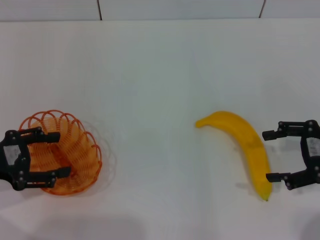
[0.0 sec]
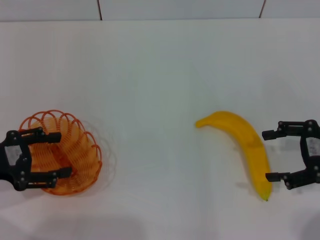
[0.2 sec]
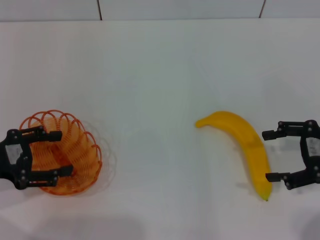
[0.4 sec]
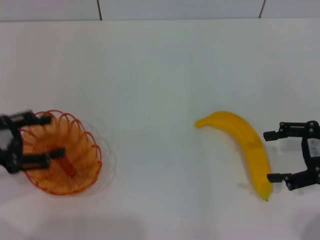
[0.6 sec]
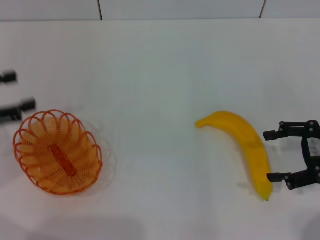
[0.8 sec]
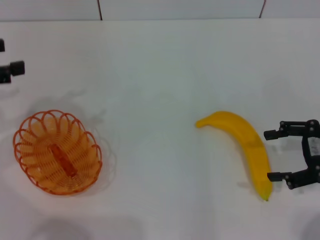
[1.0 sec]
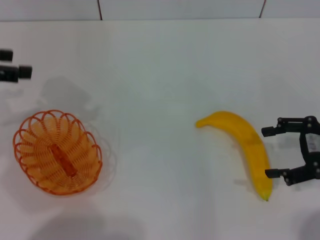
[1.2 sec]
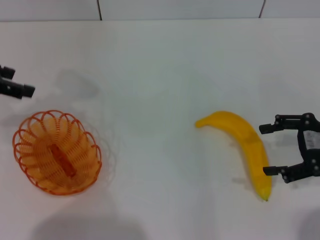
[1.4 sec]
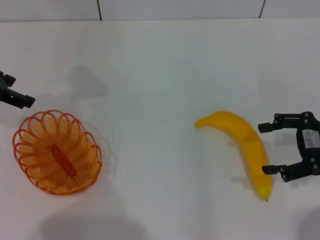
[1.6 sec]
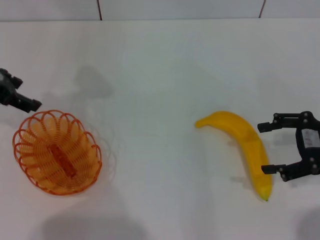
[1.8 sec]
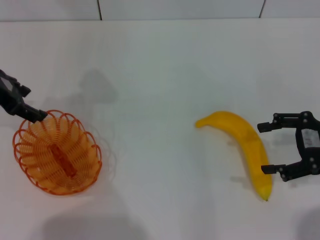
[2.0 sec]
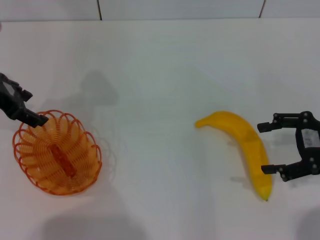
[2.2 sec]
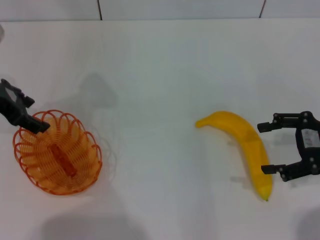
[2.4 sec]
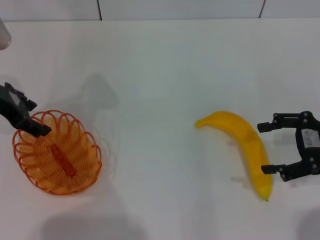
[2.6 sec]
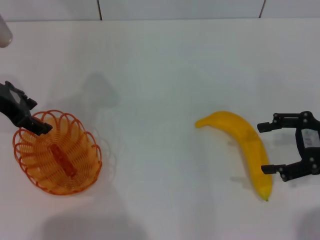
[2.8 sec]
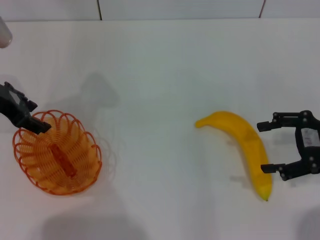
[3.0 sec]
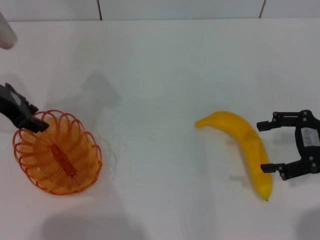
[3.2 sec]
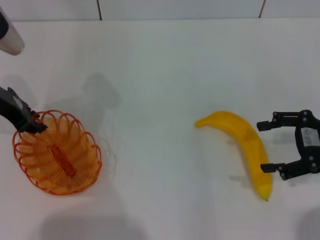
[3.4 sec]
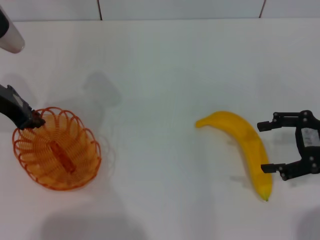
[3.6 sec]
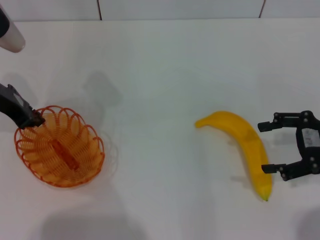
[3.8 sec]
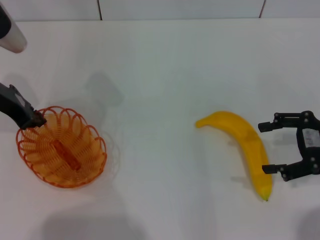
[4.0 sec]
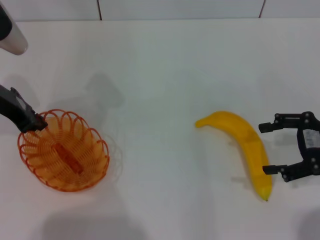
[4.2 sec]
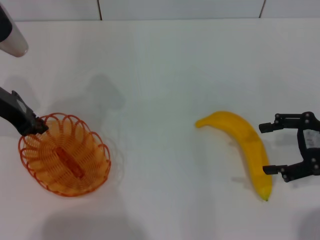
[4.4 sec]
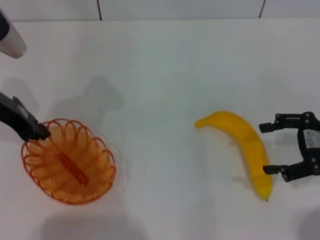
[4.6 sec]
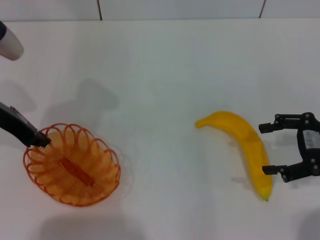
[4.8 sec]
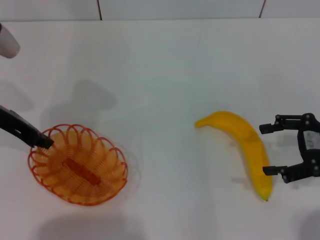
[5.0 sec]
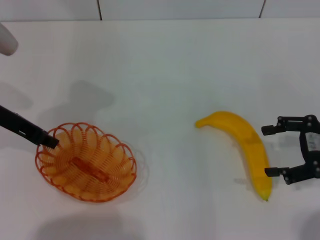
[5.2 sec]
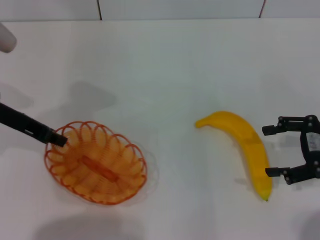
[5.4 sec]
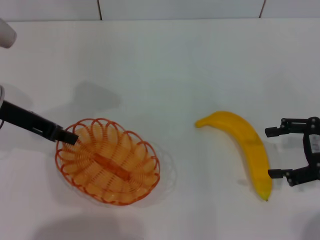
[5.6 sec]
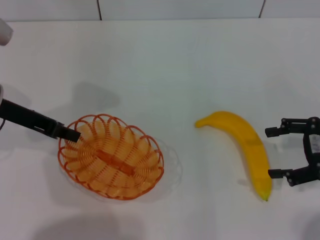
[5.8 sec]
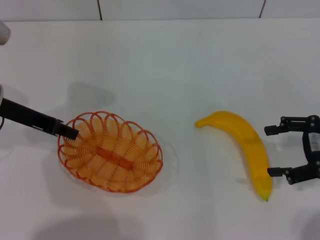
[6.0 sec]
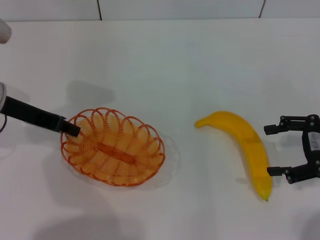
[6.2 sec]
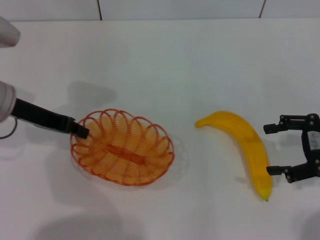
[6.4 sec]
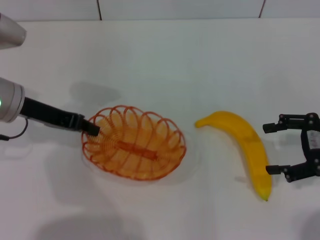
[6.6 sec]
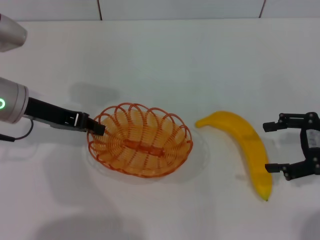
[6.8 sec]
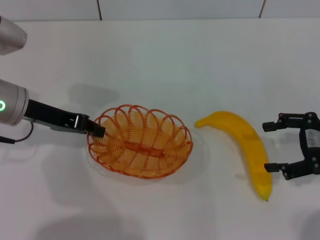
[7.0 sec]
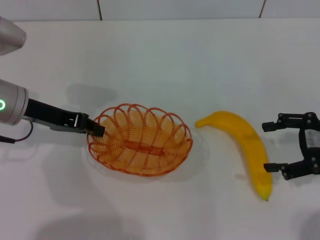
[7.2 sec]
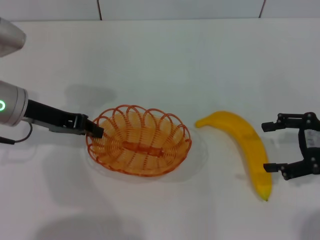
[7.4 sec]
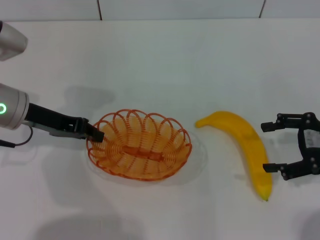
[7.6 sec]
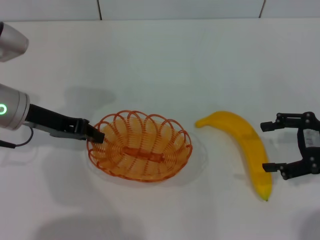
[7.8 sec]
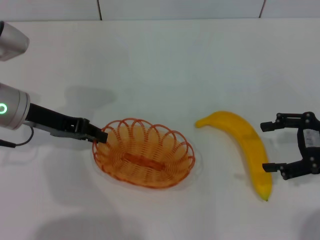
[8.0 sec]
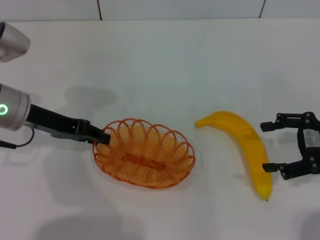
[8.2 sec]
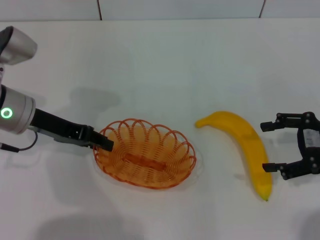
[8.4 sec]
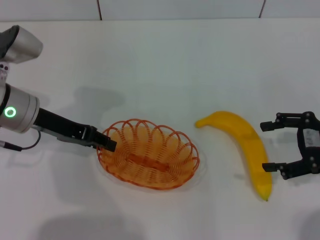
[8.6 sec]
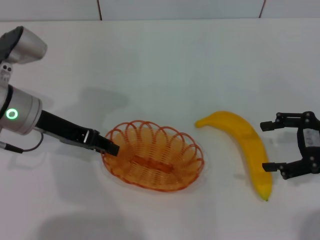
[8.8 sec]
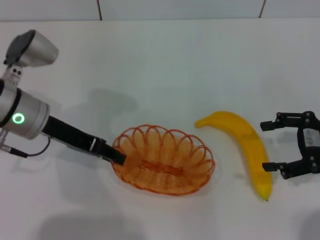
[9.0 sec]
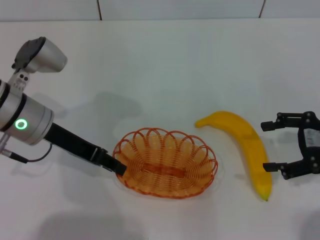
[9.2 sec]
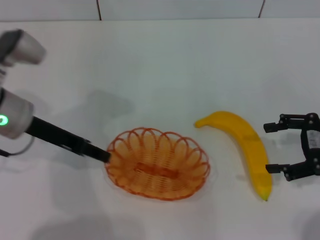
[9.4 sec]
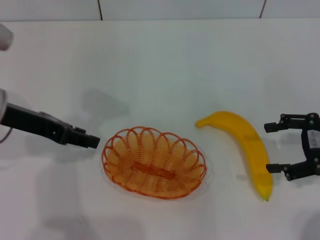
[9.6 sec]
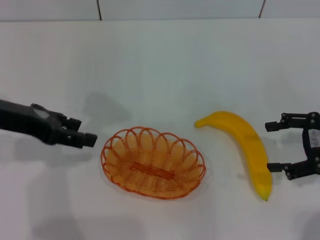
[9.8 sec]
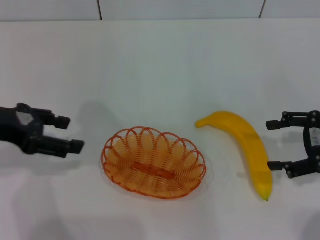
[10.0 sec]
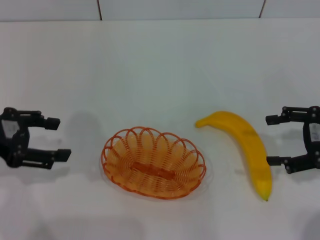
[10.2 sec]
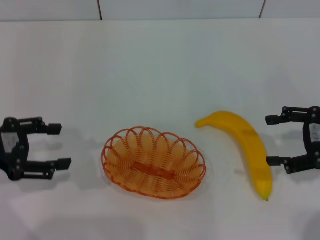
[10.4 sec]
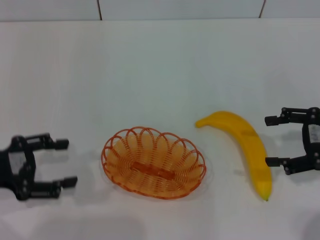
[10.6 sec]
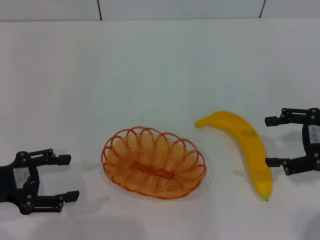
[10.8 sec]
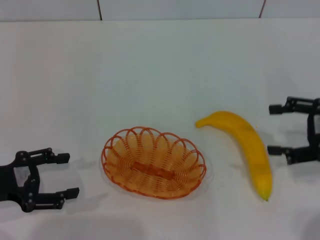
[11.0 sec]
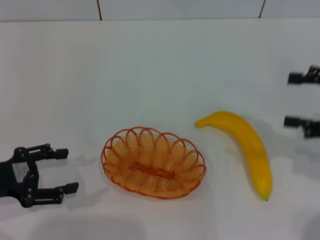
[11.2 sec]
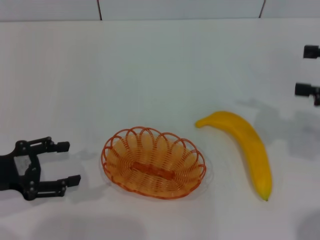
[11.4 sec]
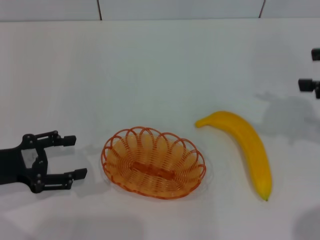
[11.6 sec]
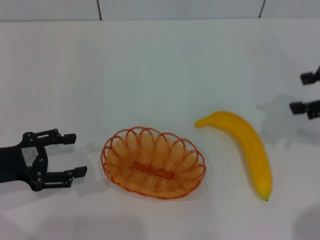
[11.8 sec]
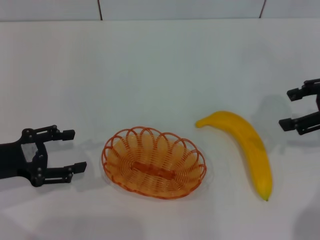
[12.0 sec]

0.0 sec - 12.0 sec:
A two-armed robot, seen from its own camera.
Step, 0.0 sec - 6.2 sec: Pick up the basket with the left gripper.
Step, 6.4 sec - 9.6 sec: Place the basket in the center of view with the left gripper.
0.0 sec - 1.6 sec: The left gripper is displaced forward and upward by roughly 15 cm.
1.6 sec - 3.0 sec: The left gripper changes place by about 5 cm.
3.0 sec - 4.4 sec: The left gripper closes its fingers.
6.0 sec - 7.6 sec: The grippers stay close to where they were, moving slightly.
7.6 sec - 9.0 sec: The left gripper opens up.
9.0 sec - 10.4 sec: The left gripper is displaced to the left and backward by some 15 cm, and opens.
10.4 sec - 12.0 sec: The left gripper travels downward by approximately 5 cm, while the right gripper is displaced upward by some 5 cm.

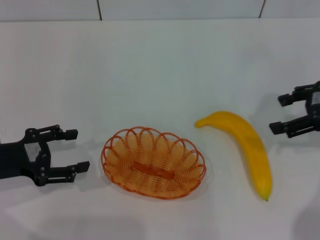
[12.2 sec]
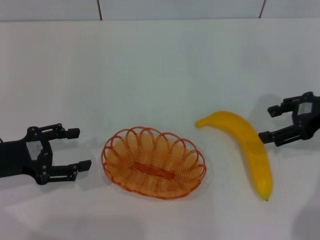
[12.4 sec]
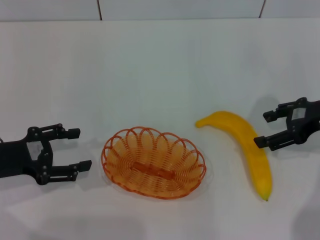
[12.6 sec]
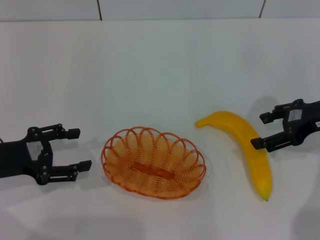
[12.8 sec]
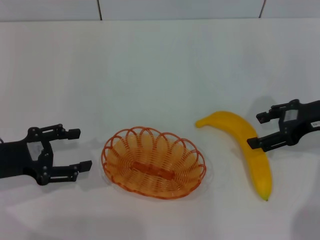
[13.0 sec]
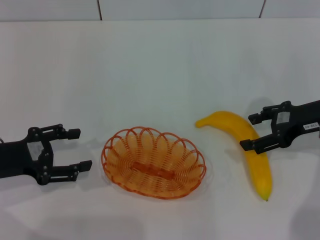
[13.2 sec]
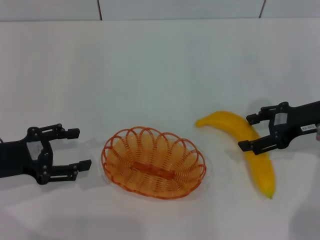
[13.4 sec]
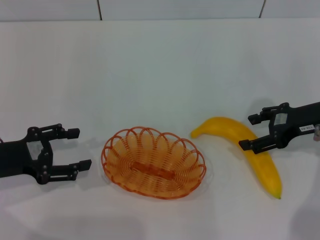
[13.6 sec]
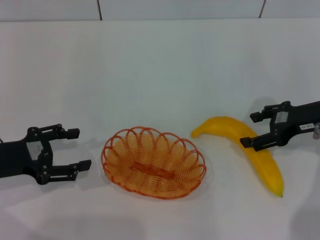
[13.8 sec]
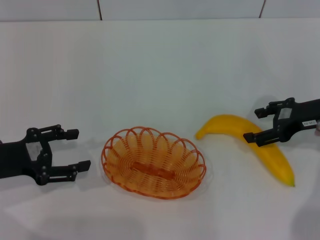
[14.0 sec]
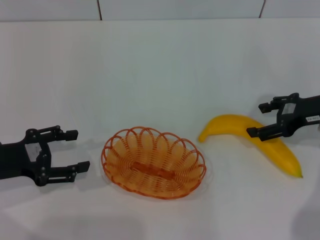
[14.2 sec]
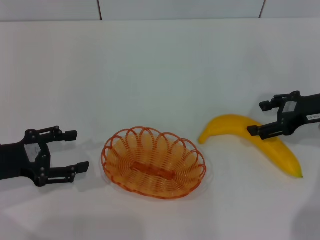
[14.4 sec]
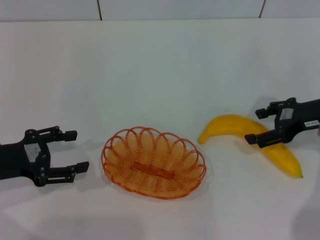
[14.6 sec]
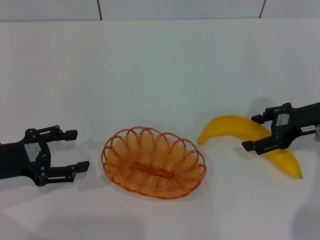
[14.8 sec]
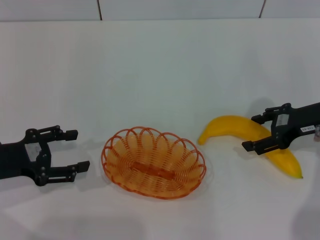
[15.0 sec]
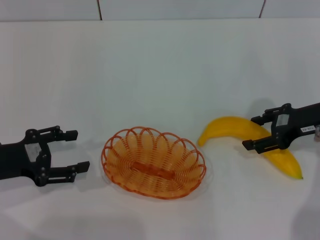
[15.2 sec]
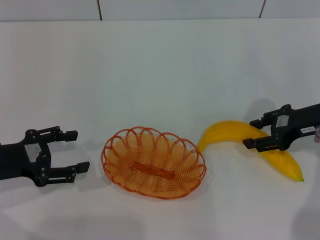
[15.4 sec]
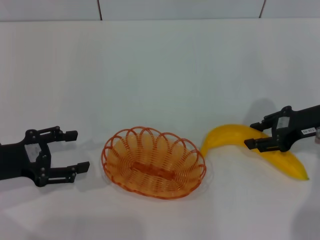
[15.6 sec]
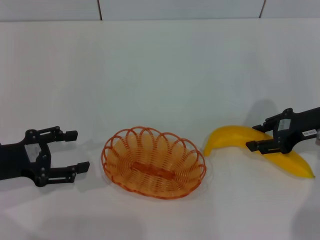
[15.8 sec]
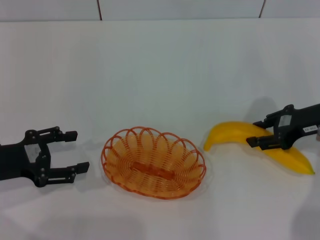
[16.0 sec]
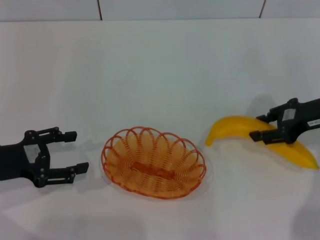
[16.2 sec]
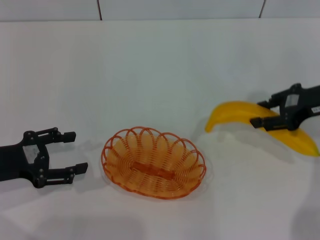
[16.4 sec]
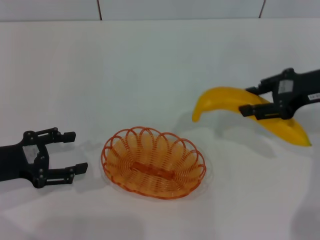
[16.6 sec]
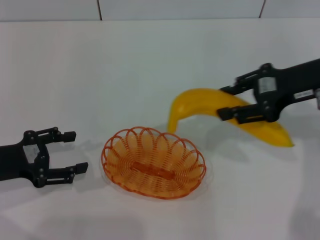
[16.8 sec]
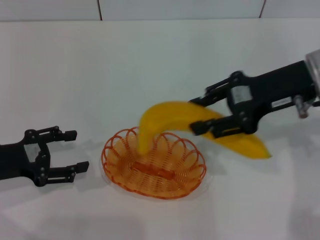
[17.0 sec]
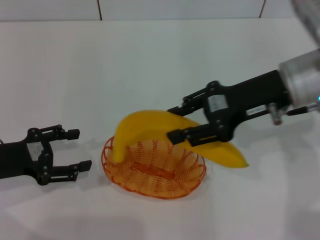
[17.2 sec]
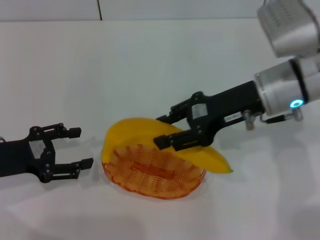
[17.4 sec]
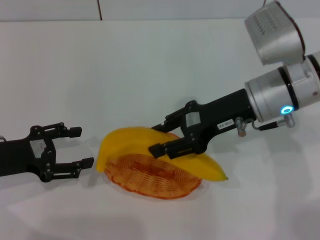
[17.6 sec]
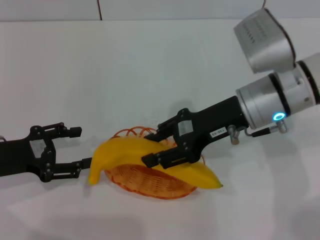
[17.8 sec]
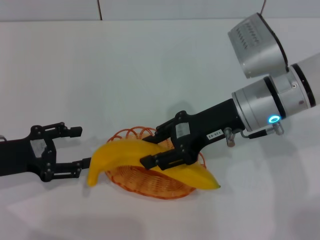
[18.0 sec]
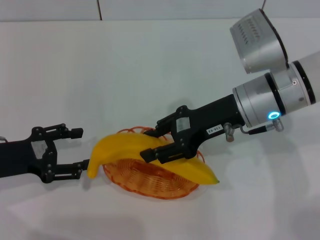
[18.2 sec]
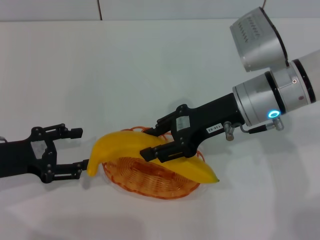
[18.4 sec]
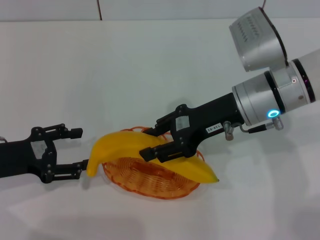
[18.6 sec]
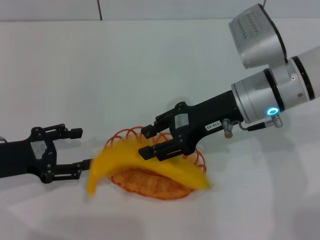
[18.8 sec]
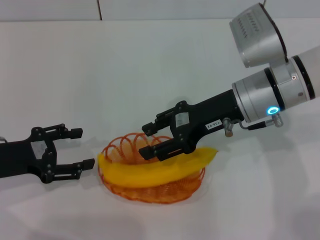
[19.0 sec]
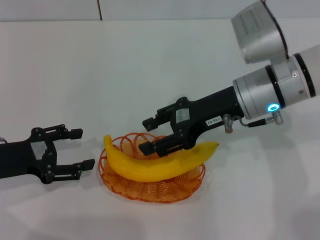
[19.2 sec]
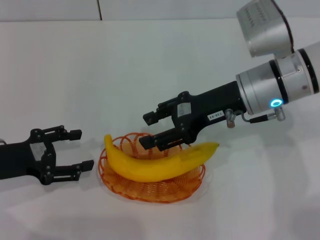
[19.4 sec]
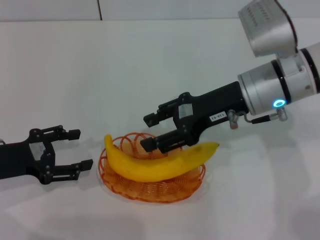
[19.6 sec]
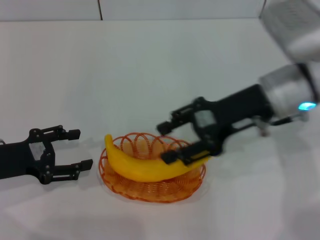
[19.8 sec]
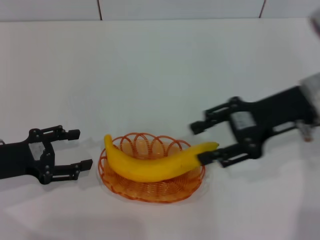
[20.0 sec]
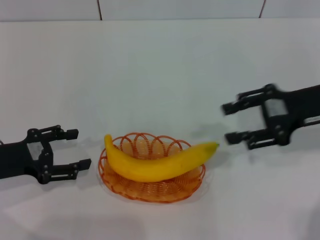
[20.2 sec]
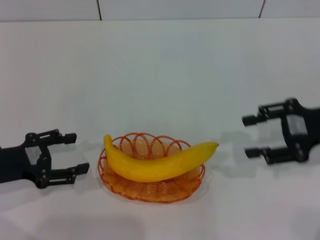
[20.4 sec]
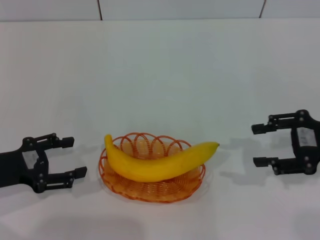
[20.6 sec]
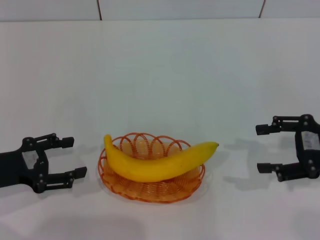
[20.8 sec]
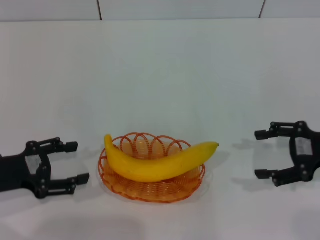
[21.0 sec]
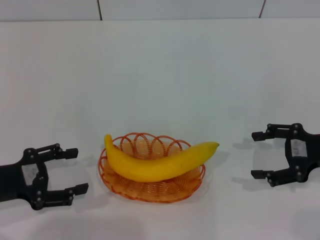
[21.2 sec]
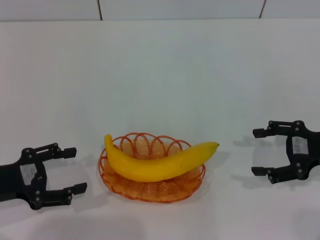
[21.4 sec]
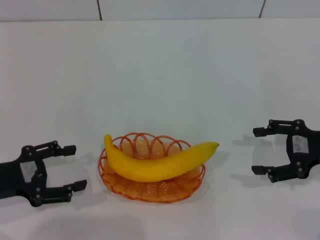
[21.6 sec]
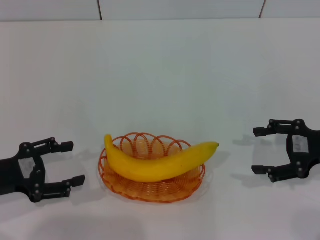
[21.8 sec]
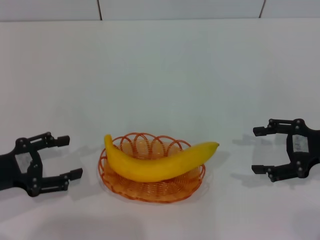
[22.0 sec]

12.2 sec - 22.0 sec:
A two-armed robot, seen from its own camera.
Step, 12.2 sec - 16.4 sec: Pick up the banana with the right gripper.
Step, 16.8 sec - 19.6 sec: Place the banana into the basket with the right gripper.
12.2 sec - 13.6 sec: The right gripper shifts about 5 cm downward.
13.6 sec - 15.0 sec: The grippers move only a little.
15.0 sec - 16.4 sec: The right gripper closes.
16.4 sec - 17.8 sec: The right gripper shifts roughly 15 cm to the left.
17.8 sec - 19.2 sec: Neither gripper changes place.
19.2 sec - 20.6 sec: The right gripper heads to the right and backward, covering roughly 20 cm.
20.6 sec - 22.0 sec: The right gripper opens its fingers.
